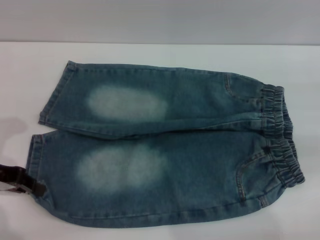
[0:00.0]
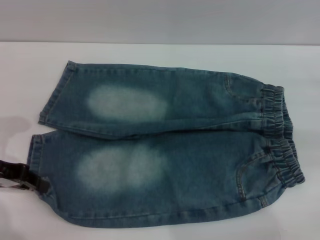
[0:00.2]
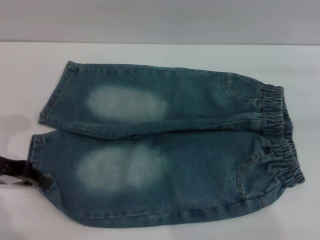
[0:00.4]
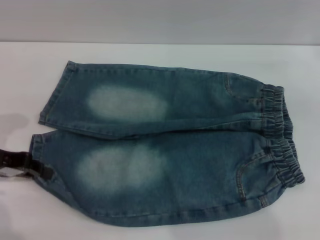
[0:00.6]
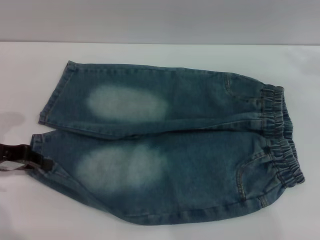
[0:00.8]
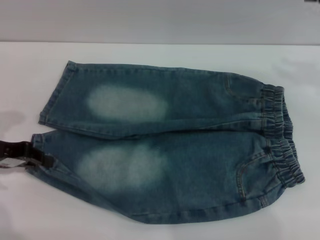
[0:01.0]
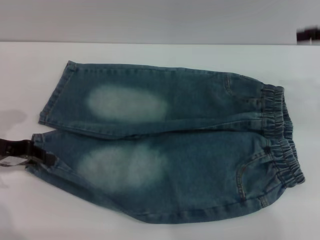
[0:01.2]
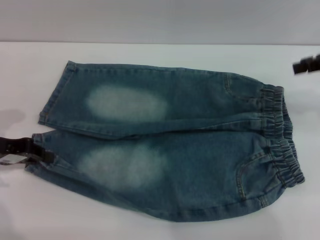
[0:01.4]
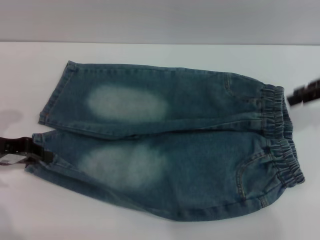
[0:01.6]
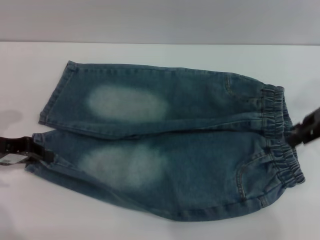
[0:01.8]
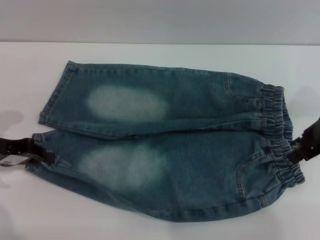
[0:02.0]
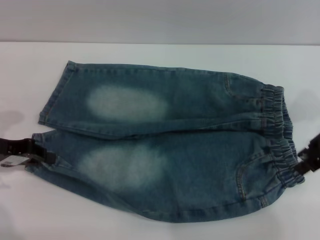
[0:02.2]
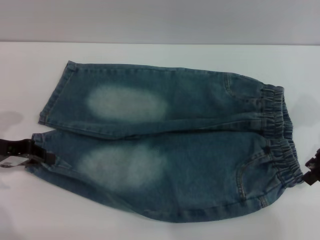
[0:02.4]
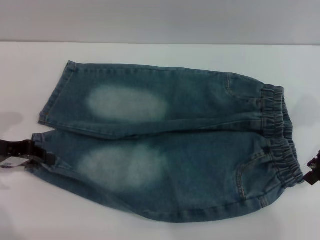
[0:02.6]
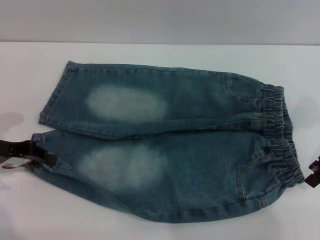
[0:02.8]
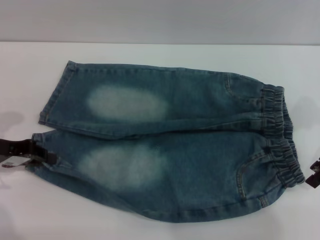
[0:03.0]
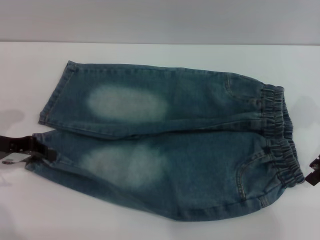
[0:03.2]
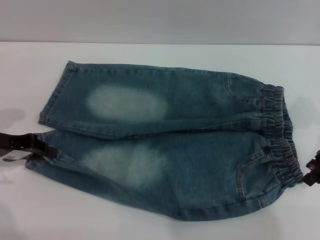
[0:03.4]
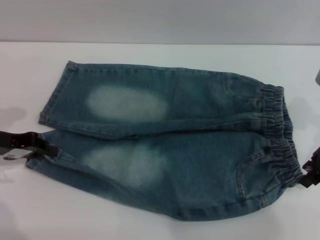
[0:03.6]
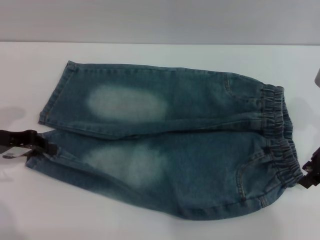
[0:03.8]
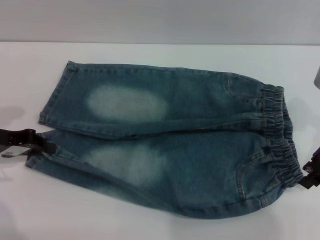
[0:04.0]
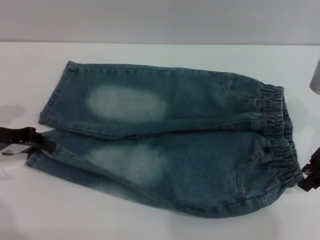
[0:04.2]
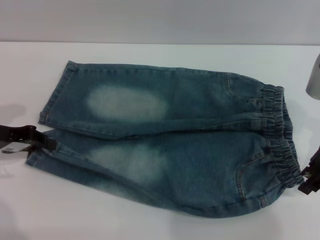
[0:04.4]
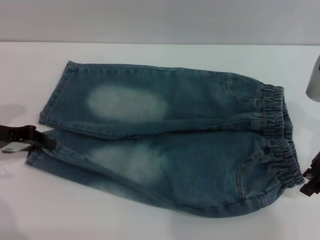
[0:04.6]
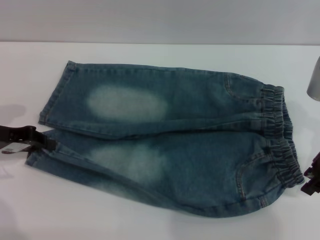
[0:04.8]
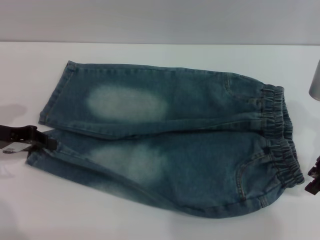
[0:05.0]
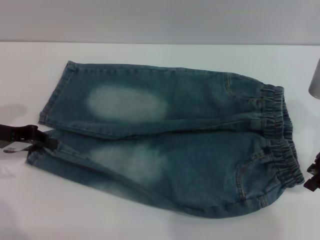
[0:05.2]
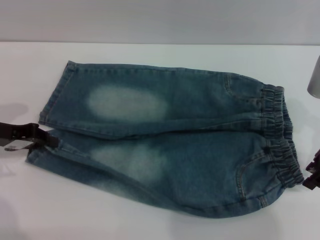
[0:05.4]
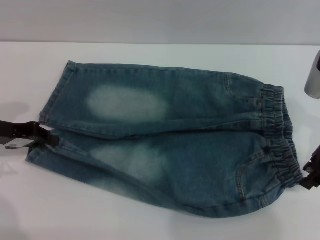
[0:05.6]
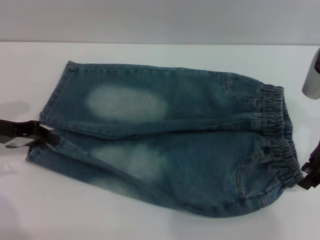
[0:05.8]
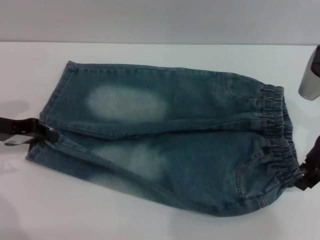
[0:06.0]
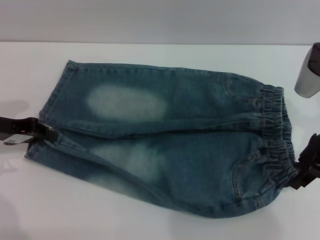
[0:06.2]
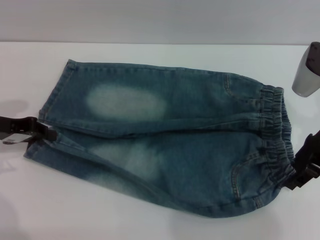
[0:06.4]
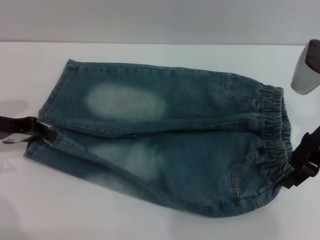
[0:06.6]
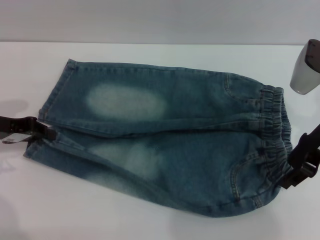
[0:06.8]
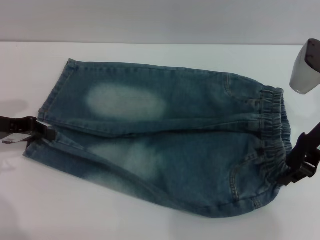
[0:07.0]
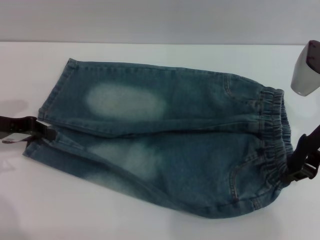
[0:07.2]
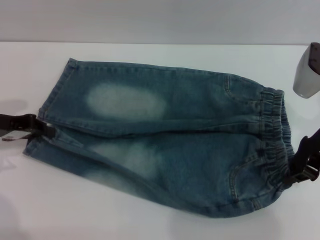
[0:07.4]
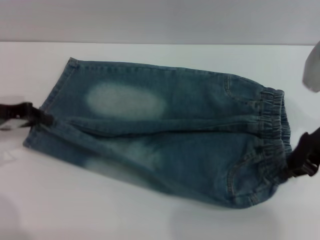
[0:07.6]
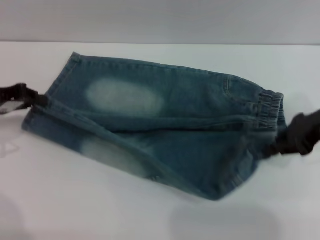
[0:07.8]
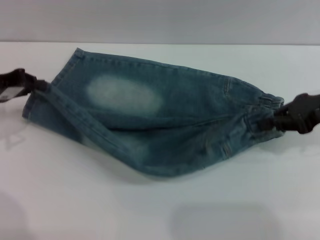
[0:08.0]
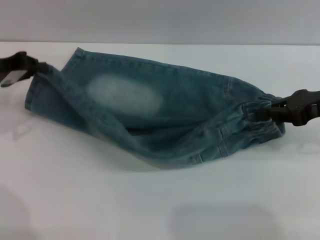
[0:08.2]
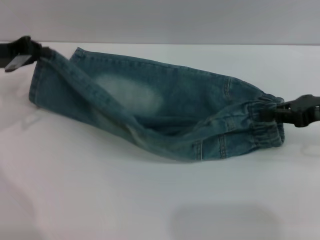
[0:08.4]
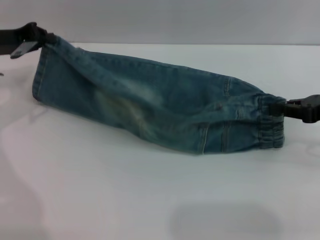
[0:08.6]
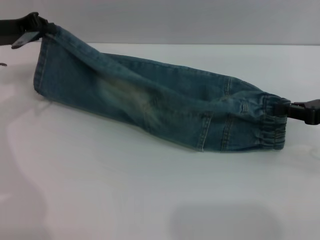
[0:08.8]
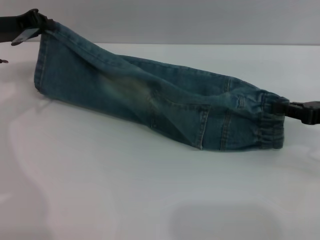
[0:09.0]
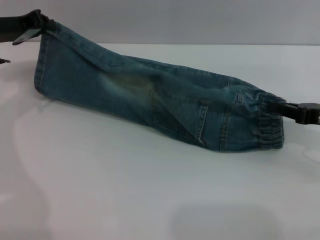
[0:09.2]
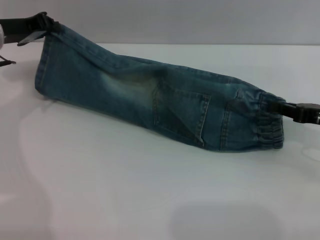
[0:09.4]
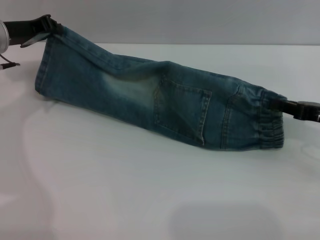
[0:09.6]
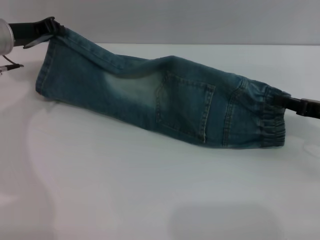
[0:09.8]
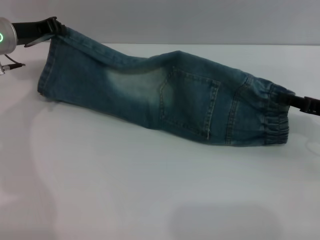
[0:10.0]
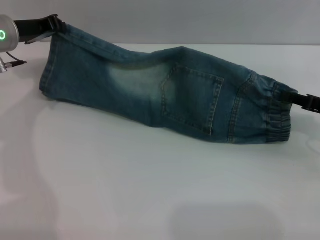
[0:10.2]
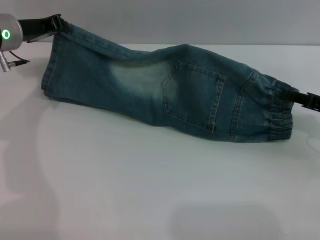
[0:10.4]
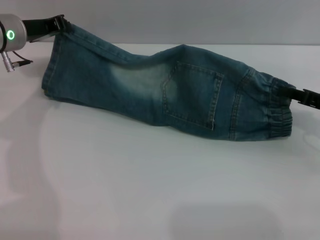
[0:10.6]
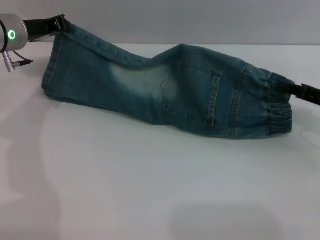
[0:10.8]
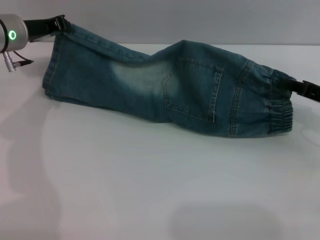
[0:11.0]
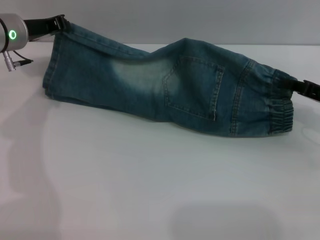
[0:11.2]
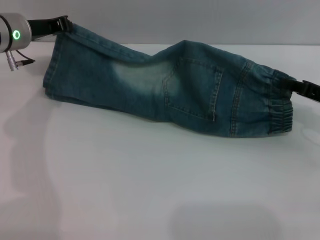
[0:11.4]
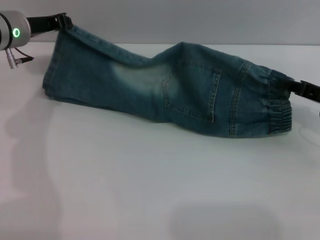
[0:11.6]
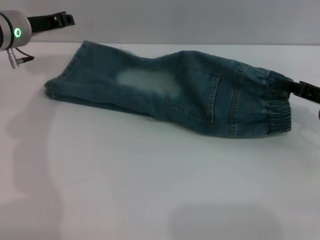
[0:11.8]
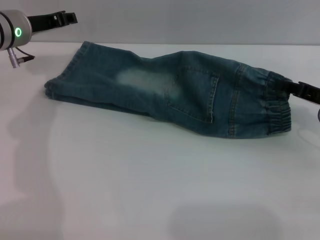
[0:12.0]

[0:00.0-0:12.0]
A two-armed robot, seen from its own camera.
0:00.0 to 0:01.6: The right gripper is displaced upward, to the left and forward by roughly 10 cm.
0:01.6 to 0:03.0: The right gripper travels downward by some 5 cm.
0:03.0 to 0:04.4: The grippers make only small movements.
0:04.4 to 0:06.0: Neither gripper changes place.
0:06.0 to 0:07.6: The right gripper closes.
0:07.6 to 0:09.0: The left gripper goes about 10 cm forward, while the right gripper heads to the right, covering roughly 5 cm.
0:09.0 to 0:10.4: The grippers stay close to where they were, moving slightly.
0:10.4 to 0:12.0: The left gripper opens its fingers.

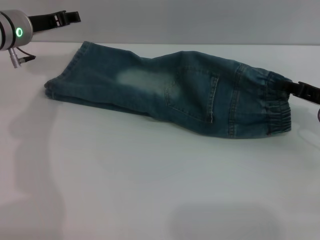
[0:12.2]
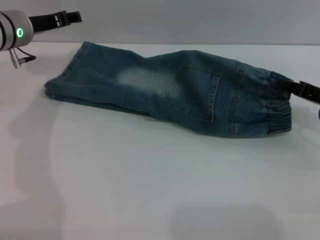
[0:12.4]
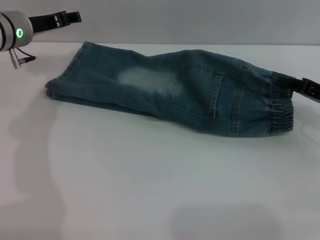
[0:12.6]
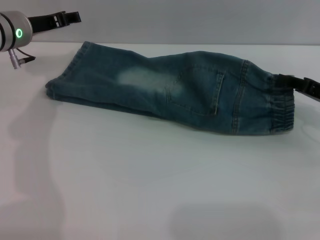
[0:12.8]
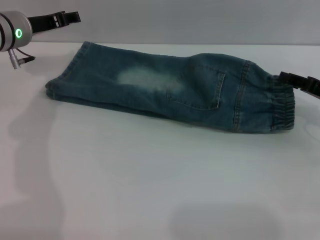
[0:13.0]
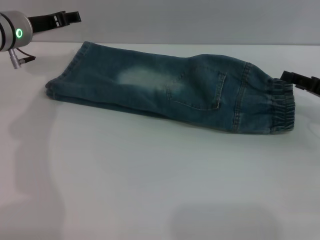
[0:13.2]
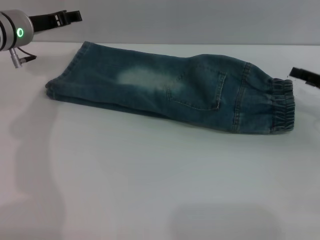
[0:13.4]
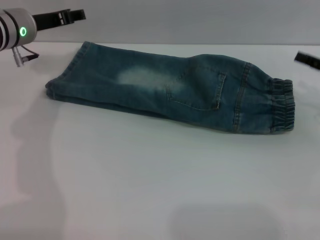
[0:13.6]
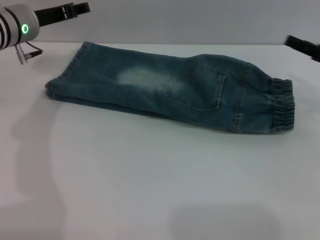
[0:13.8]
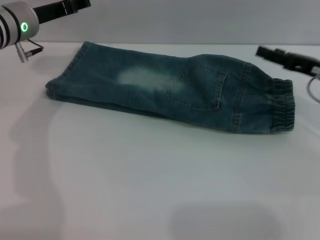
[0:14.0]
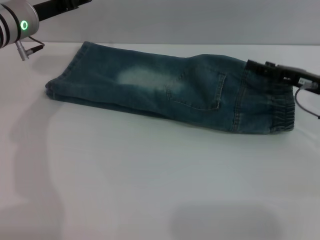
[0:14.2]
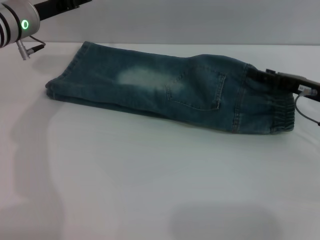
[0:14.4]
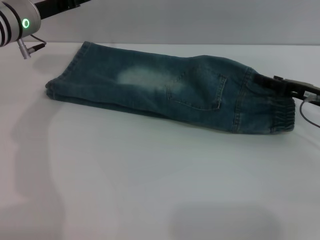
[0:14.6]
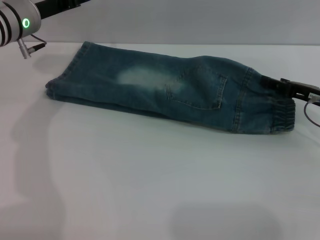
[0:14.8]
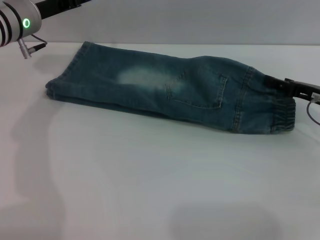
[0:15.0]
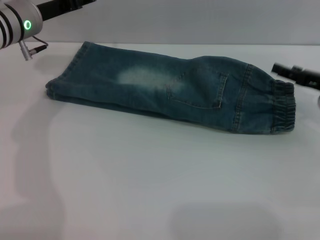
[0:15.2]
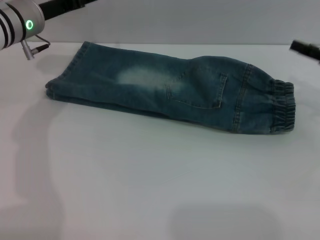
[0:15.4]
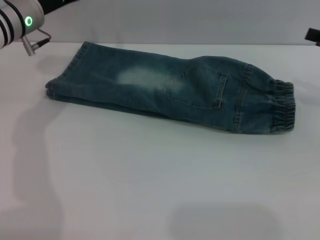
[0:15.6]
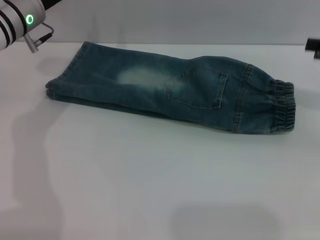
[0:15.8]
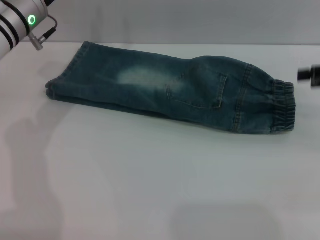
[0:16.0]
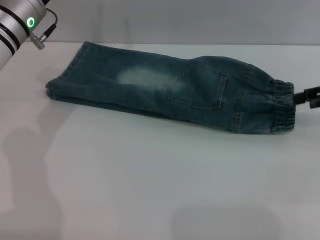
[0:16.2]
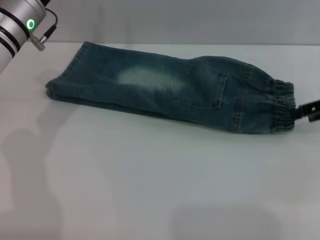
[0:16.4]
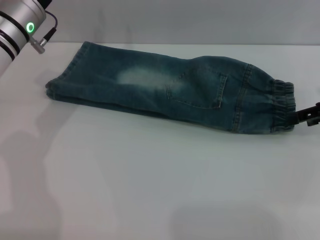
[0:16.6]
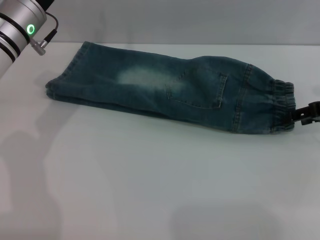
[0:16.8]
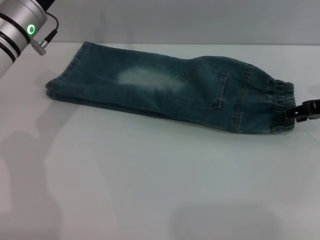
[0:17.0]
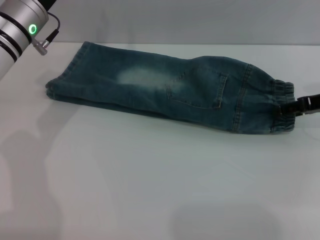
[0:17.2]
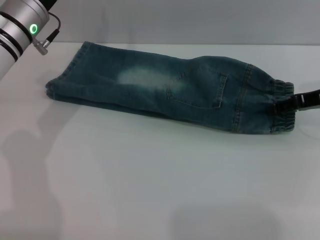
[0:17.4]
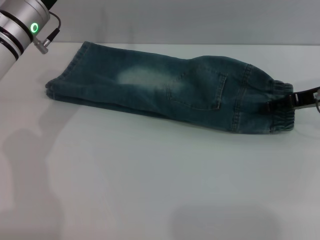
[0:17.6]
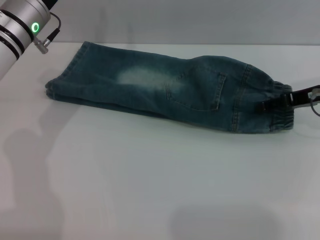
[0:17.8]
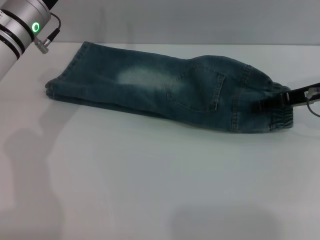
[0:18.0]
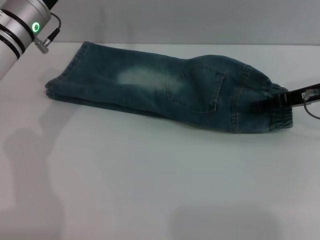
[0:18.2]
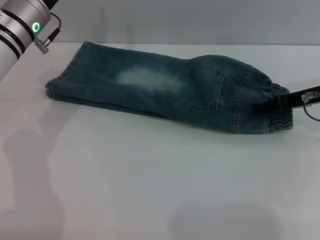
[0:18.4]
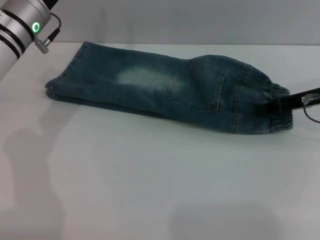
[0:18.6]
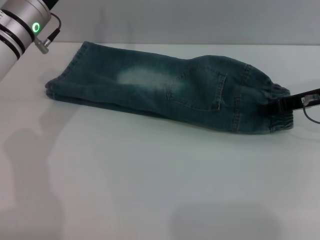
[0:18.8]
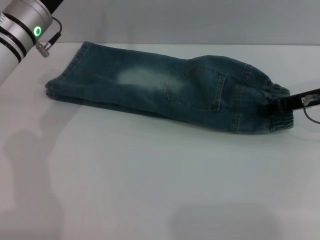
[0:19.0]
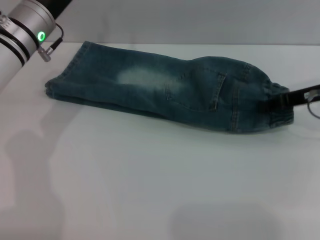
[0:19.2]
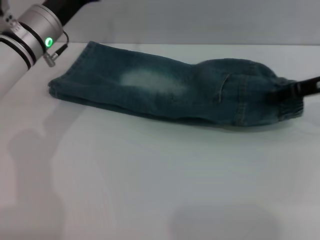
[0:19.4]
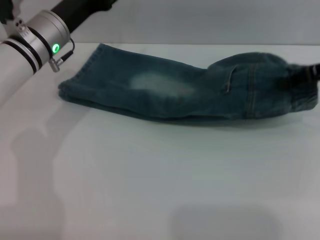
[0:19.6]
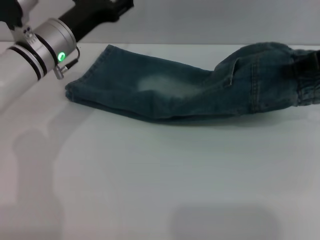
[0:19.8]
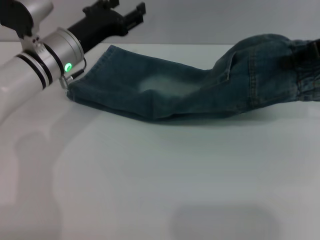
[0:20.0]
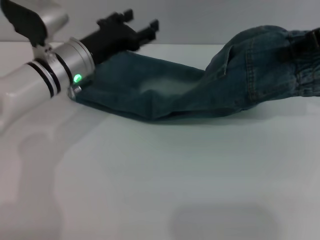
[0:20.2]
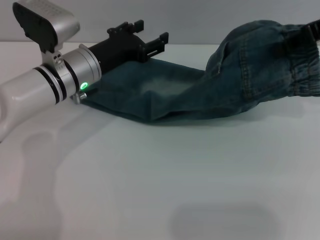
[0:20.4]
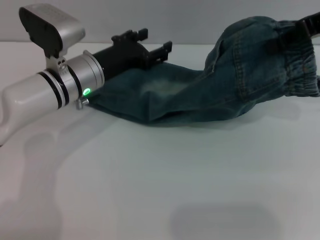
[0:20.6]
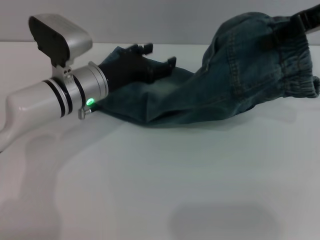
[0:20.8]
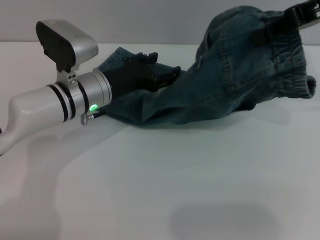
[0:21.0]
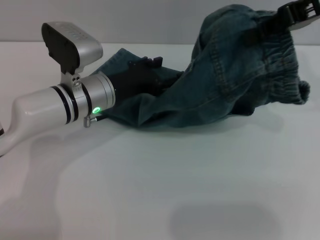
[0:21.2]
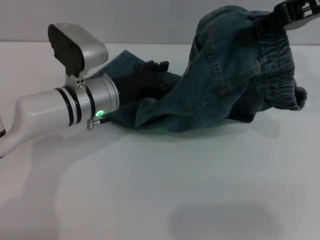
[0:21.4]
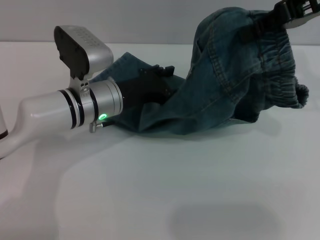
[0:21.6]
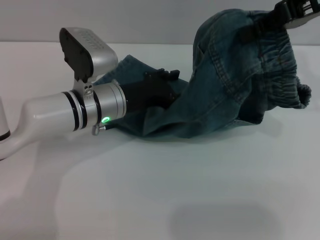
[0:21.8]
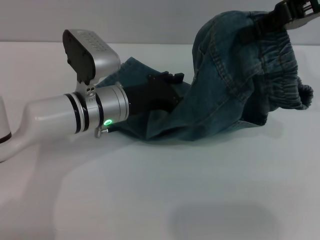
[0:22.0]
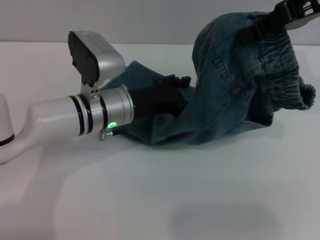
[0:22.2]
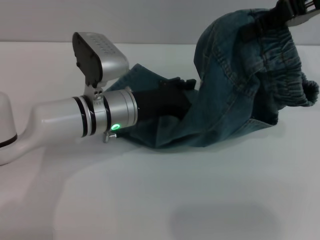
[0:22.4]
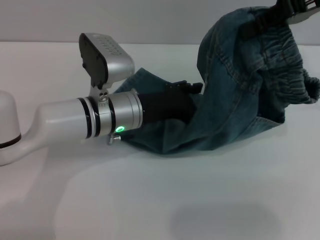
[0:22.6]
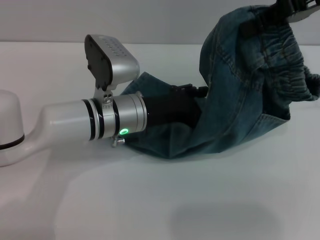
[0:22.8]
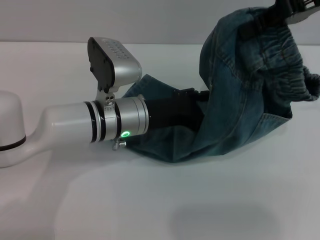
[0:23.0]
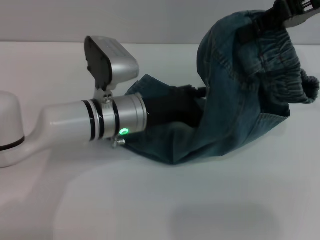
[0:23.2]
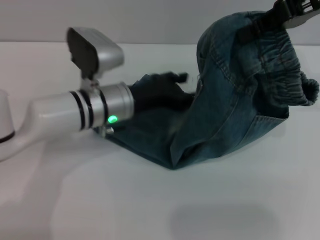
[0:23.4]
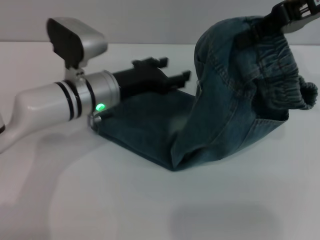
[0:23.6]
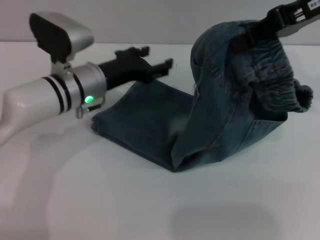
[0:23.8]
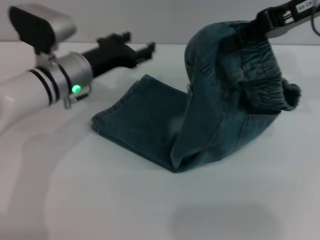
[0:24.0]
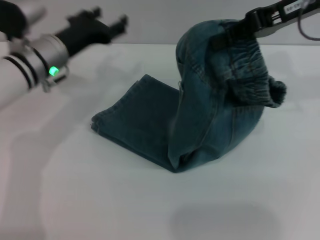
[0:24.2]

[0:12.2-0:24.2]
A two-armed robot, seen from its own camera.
0:12.2 to 0:13.8: The right gripper opens up.
0:13.8 to 0:15.2: There are only small adjustments of the grippers.
0:15.2 to 0:16.6: The right gripper heads upward, covering some 5 cm.
0:16.6 to 0:18.2: The right gripper is displaced to the left by some 5 cm.
0:18.2 to 0:19.8: The right gripper goes about 10 cm upward, and closes its fingers.
0:19.8 to 0:21.2: The right gripper moves upward and to the left, approximately 10 cm. Meanwhile the left gripper changes place by approximately 10 cm.
0:22.6 to 0:24.2: The left gripper heads to the left and forward, covering about 10 cm.
